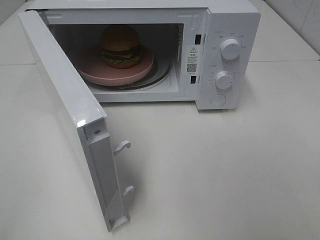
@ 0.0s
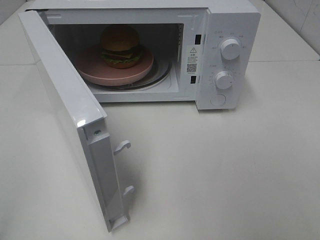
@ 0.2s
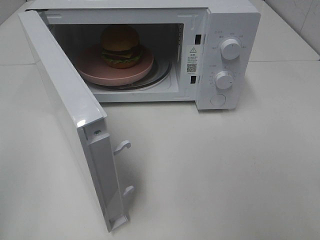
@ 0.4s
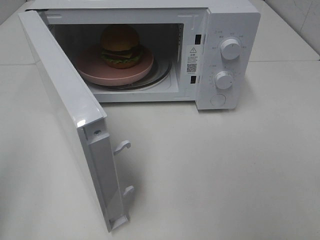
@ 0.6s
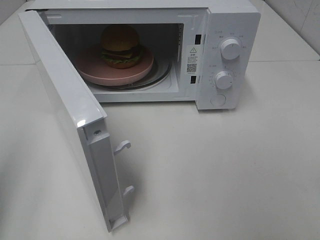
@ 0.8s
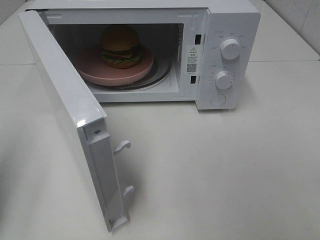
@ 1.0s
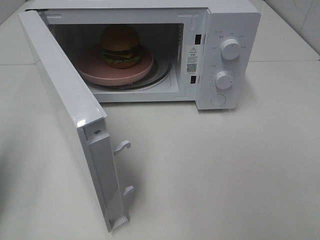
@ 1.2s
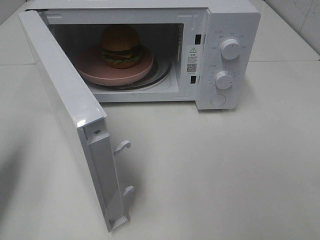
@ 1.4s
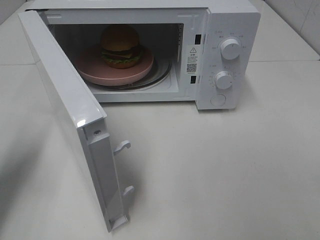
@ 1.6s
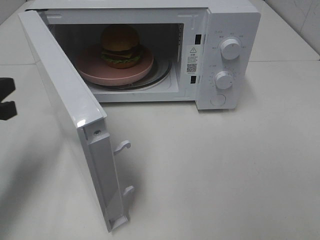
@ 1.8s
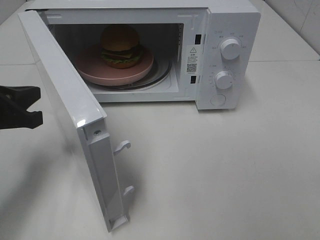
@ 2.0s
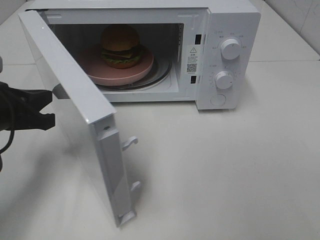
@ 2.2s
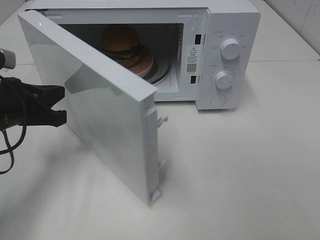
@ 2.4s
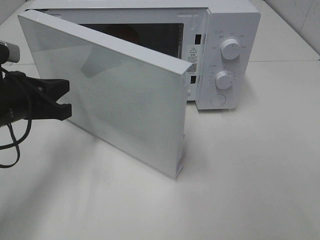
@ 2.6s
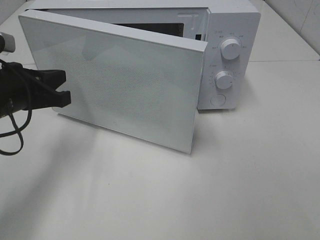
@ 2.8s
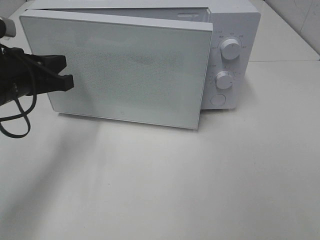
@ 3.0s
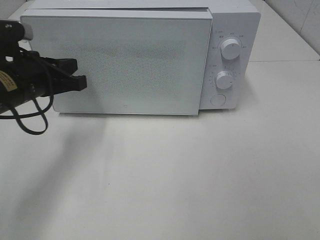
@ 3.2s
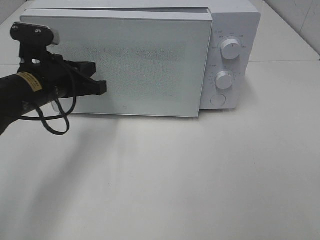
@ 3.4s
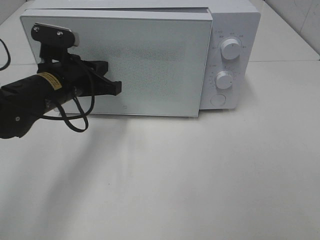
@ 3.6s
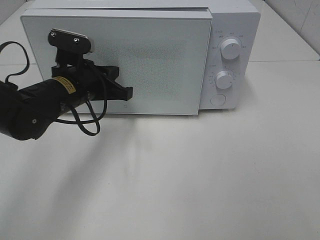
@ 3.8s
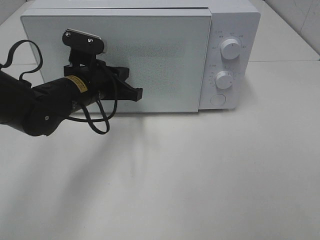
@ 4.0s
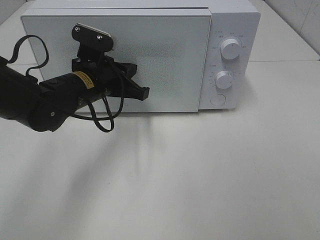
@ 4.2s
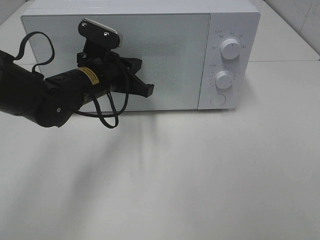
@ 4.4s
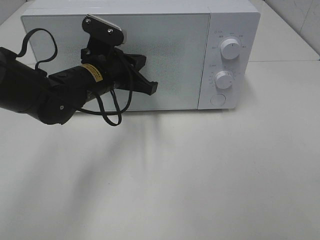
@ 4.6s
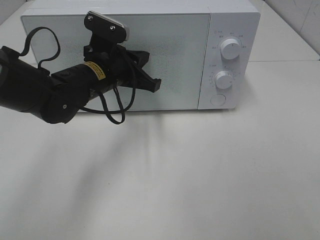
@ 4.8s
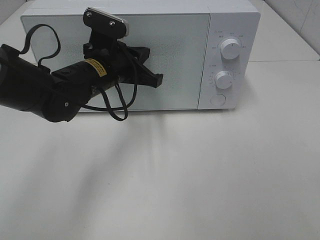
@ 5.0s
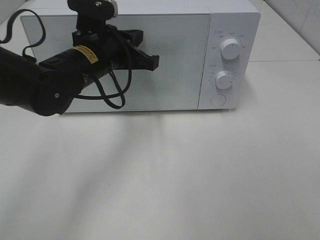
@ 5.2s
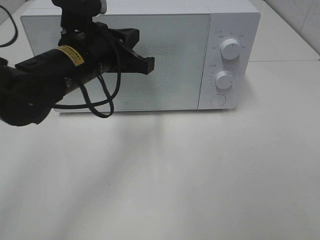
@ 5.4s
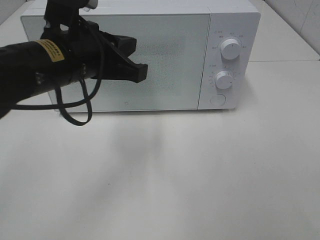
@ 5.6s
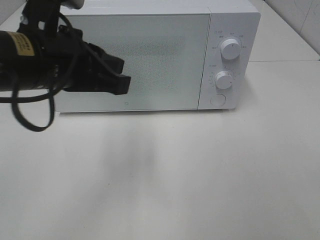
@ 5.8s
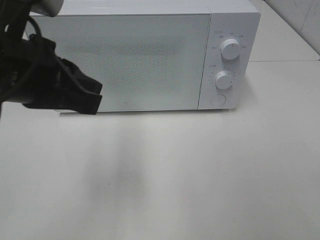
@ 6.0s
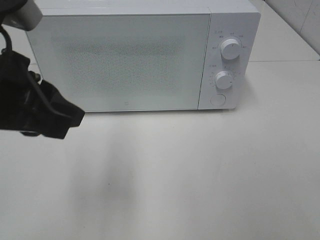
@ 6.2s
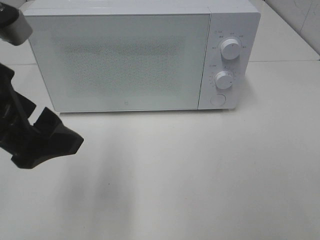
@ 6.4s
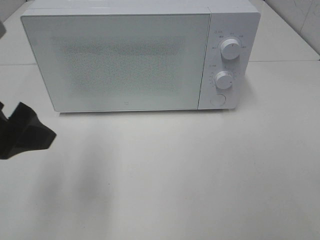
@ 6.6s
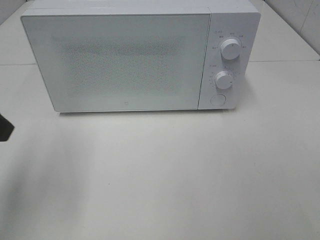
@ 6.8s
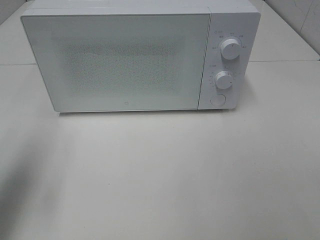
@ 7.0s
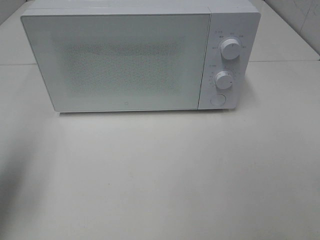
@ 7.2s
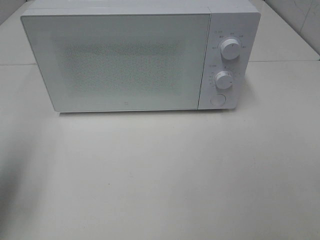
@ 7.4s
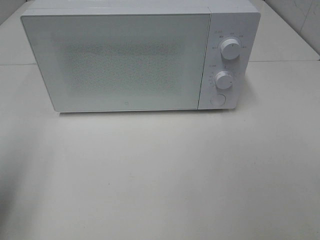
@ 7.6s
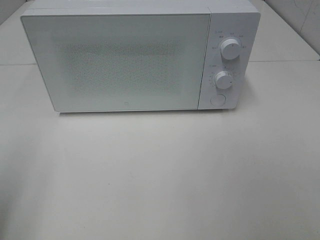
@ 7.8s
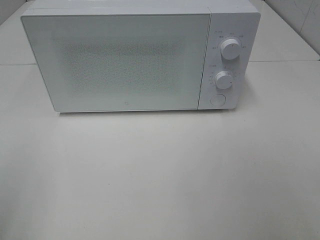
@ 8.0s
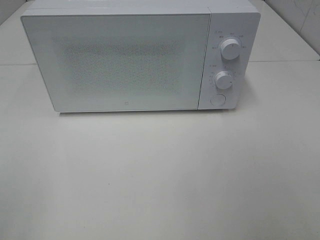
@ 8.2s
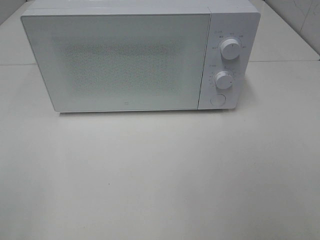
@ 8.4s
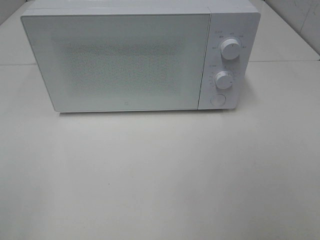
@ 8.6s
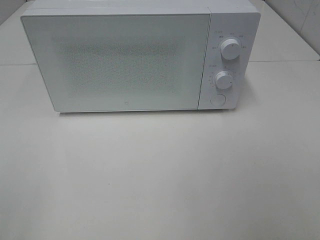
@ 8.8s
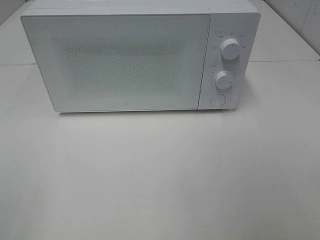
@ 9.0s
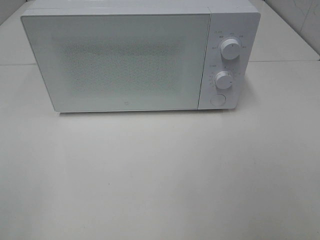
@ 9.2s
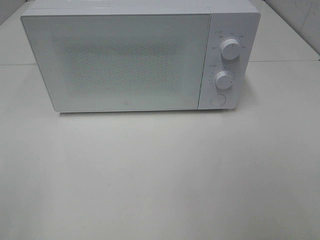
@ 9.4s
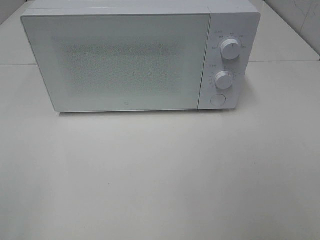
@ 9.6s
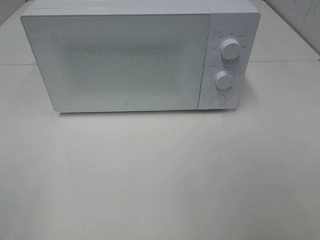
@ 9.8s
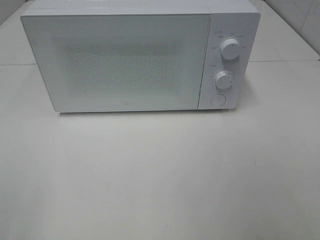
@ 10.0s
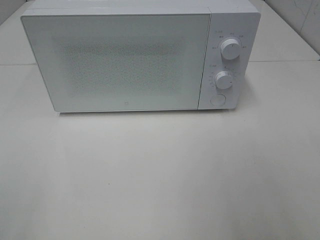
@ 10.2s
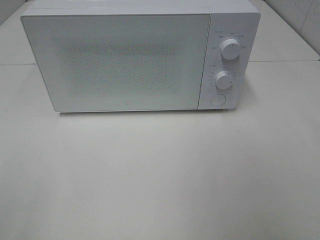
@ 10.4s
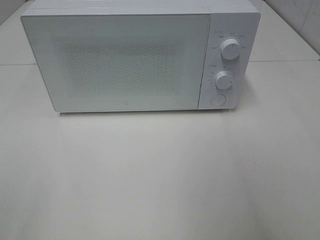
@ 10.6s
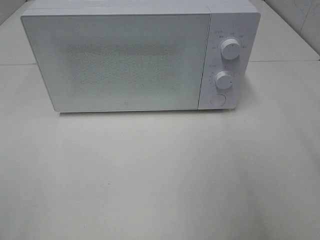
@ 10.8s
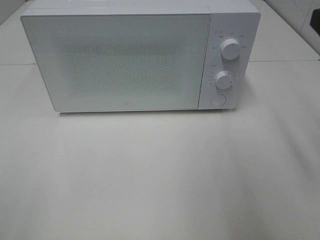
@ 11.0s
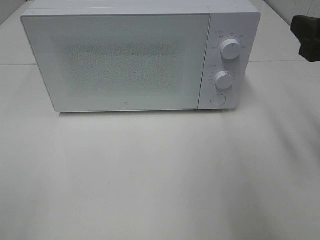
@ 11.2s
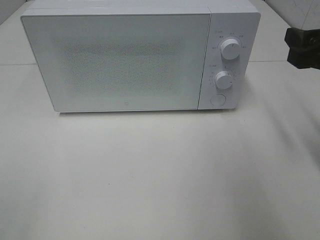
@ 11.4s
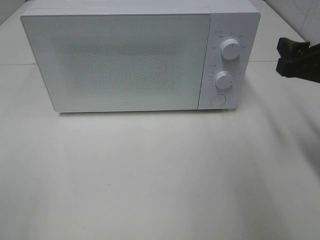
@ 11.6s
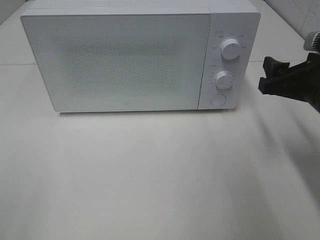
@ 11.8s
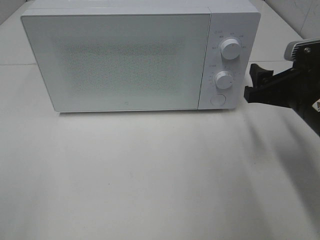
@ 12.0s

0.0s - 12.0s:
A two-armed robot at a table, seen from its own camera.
Task of the whole recording: Heat the burger.
Step, 0.0s - 4.4s: Left hand: close the microwave door.
0.0s - 1.6s: The left gripper shifts roughly 20 cm forward, and closes.
1.6s - 3.0s: The left gripper is displaced to the right and forward by approximately 10 cm.
3.0s - 4.4s: The left gripper moves to the right and forward, approximately 15 cm.
4.4s - 6.0s: The left gripper heads backward and upward, covering about 20 cm.
6.0s - 7.6s: The left gripper goes roughly 20 cm to the left, and opens.
7.6s - 9.0s: The left gripper moves backward, some 15 cm.
10.4s - 12.0s: The right gripper moves forward, downward and to the left, about 25 cm.

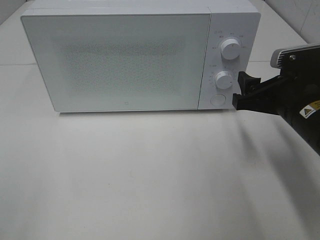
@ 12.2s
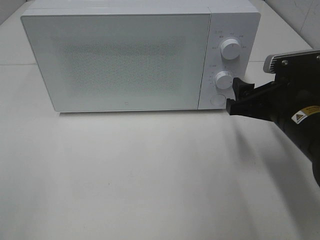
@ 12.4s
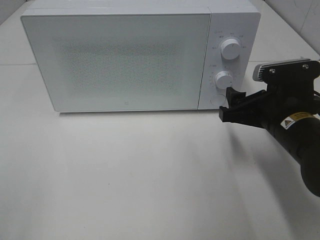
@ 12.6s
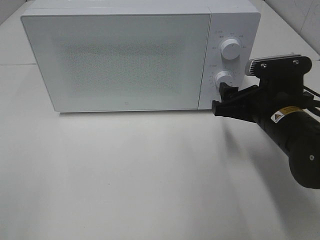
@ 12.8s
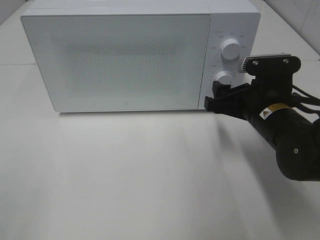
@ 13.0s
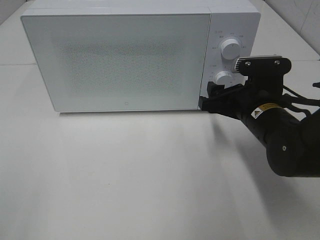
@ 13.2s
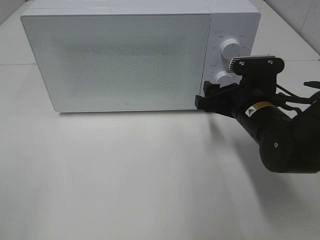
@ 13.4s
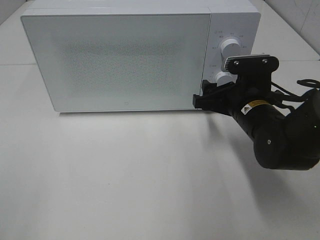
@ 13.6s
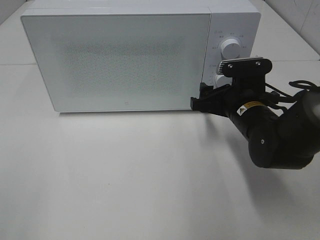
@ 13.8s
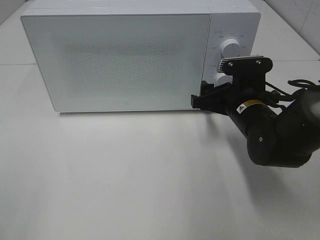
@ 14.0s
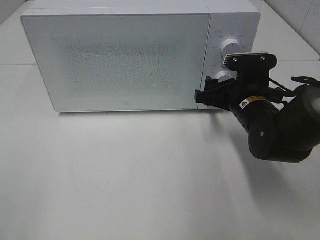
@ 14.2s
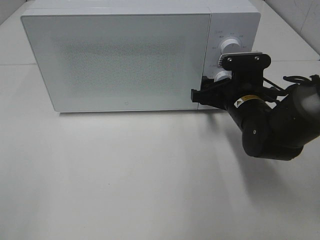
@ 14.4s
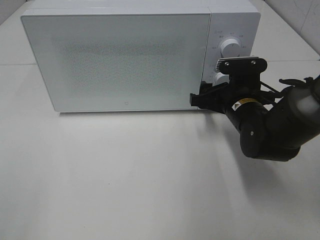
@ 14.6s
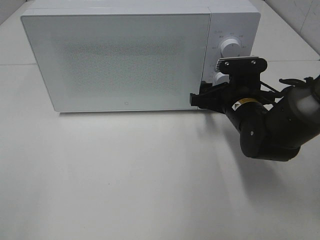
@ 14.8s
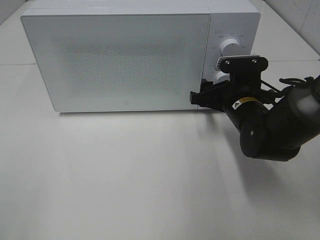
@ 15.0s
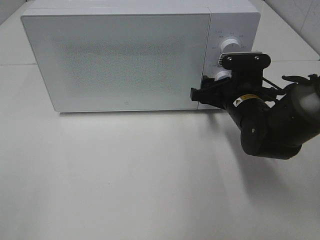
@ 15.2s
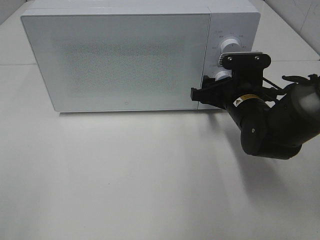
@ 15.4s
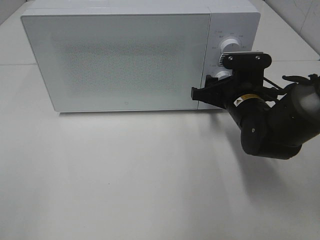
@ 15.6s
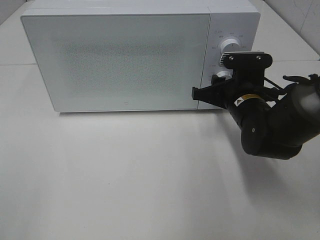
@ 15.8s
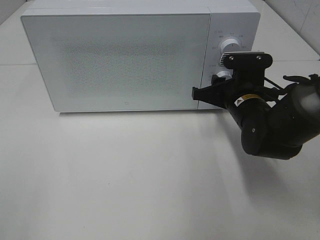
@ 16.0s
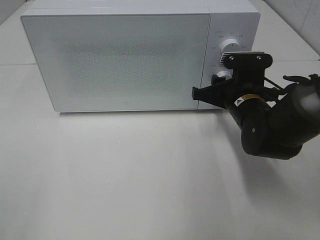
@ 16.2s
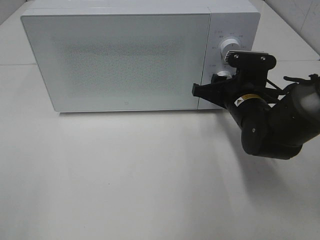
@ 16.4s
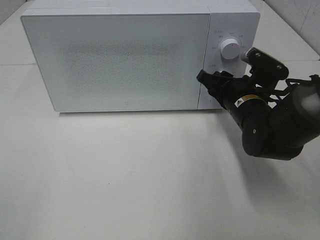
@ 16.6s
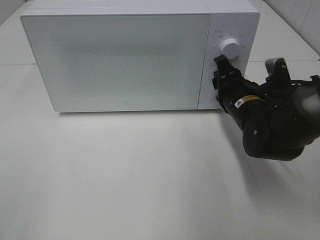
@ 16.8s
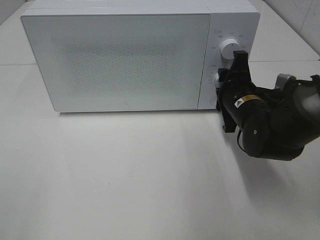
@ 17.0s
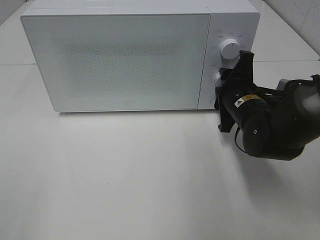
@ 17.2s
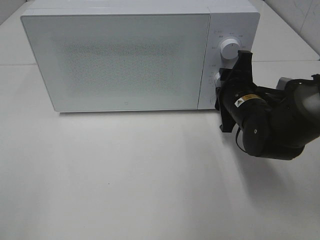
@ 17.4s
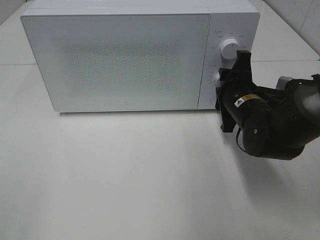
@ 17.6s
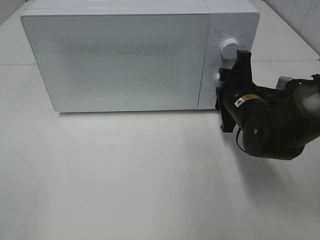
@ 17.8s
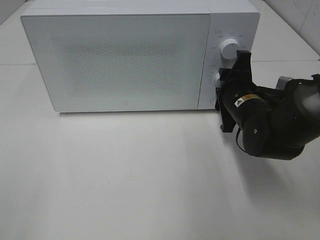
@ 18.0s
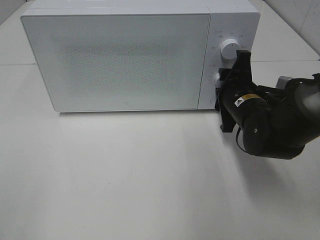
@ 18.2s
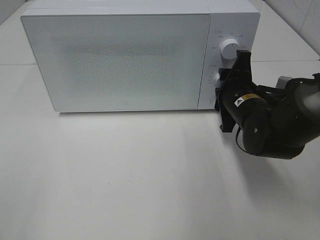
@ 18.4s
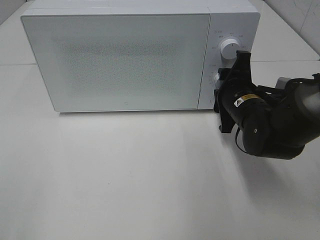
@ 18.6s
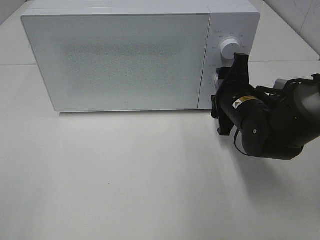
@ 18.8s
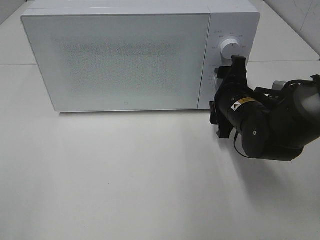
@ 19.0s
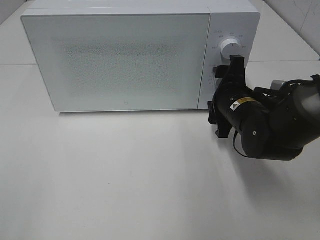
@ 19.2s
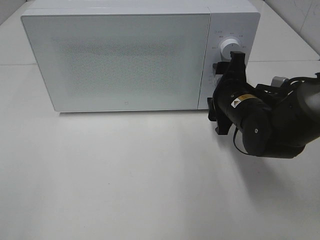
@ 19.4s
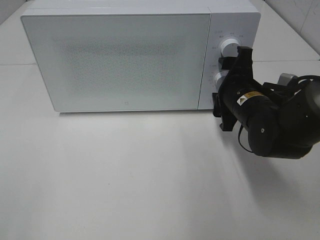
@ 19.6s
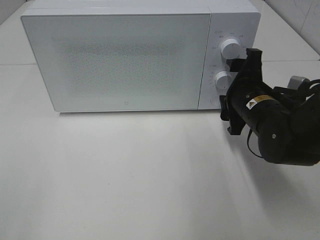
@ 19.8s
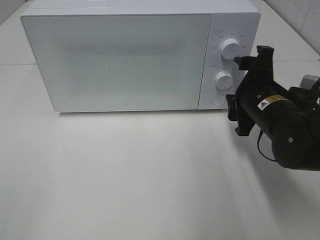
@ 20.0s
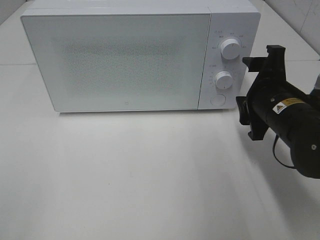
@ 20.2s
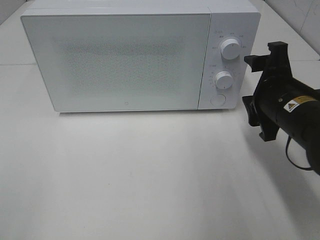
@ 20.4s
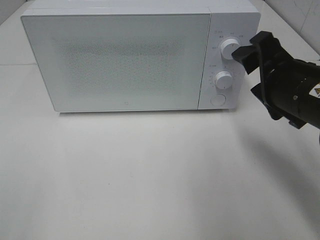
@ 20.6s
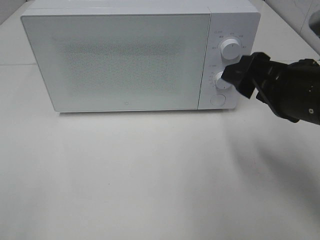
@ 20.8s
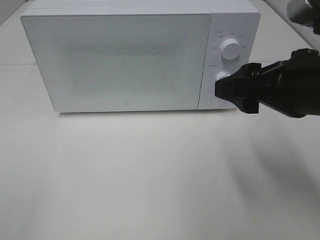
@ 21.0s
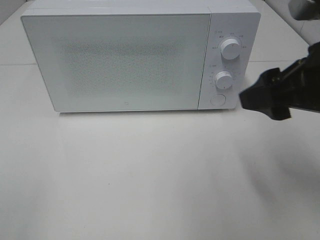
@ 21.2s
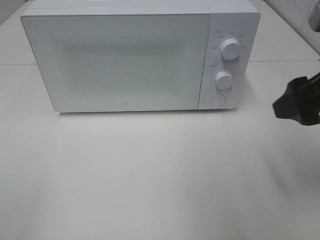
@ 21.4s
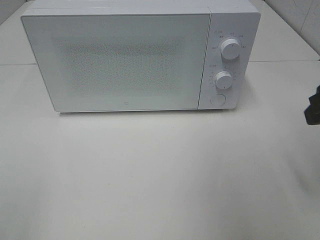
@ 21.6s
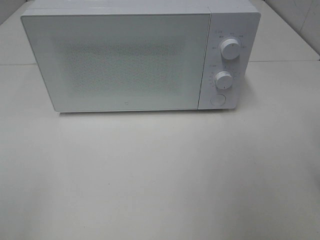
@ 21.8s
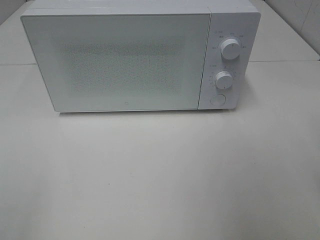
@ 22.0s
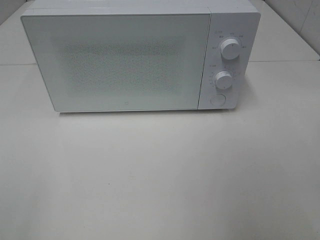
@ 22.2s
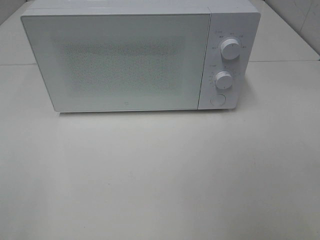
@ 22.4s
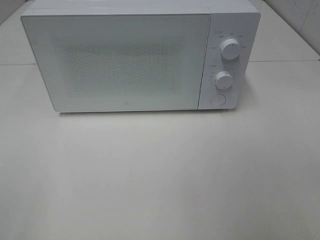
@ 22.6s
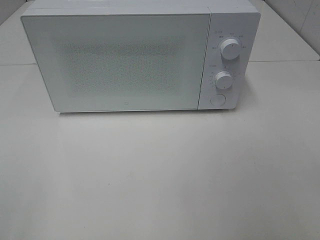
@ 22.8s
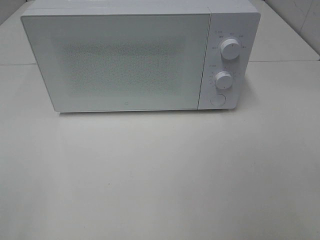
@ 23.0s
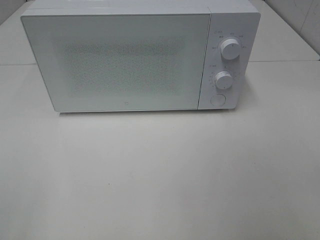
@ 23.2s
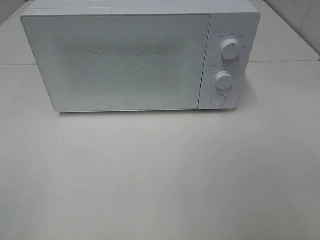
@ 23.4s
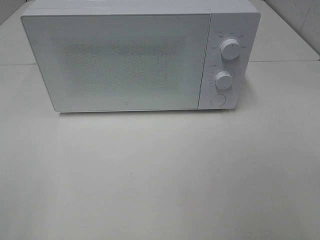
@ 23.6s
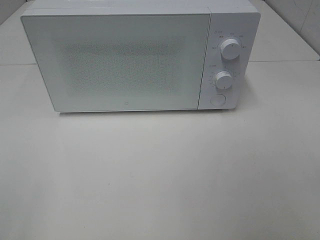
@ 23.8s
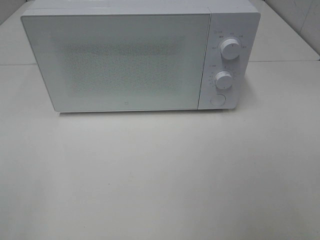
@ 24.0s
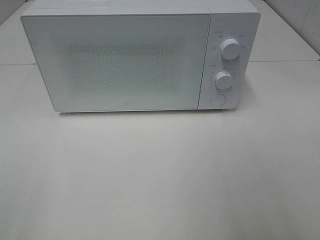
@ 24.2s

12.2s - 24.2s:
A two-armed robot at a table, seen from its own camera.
Task of the whole recording: Heat the burger.
Step, 12.2s - 18.6s: Right hand: twist timer button.
12.2s - 13.8s: The right gripper goes some 10 cm forward, to the left and downward.
13.8s - 15.2s: The grippers move only a little.
15.2s - 16.6s: The right gripper closes.
18.2s - 19.8s: The grippers move only a little.
19.8s - 21.2s: The right gripper travels upward and backward by some 20 cm.
21.2s - 22.6s: The right gripper moves backward and to the right, approximately 20 cm.
